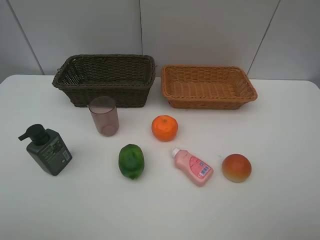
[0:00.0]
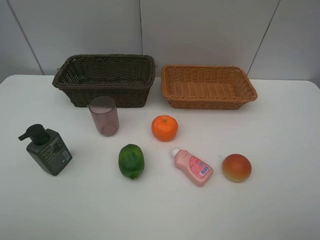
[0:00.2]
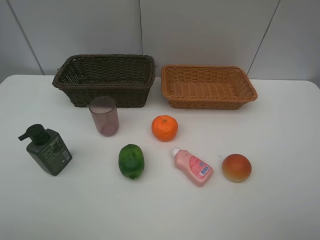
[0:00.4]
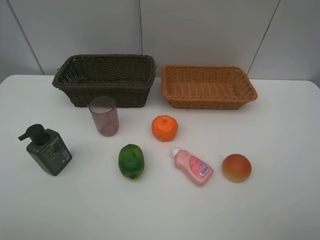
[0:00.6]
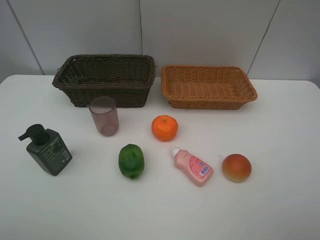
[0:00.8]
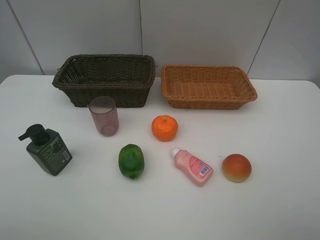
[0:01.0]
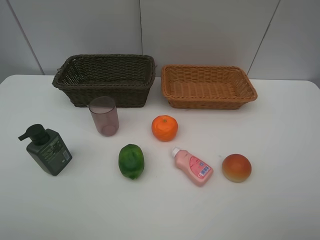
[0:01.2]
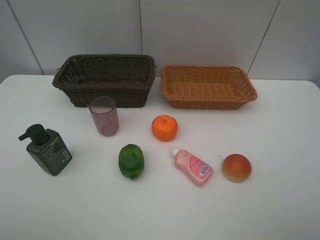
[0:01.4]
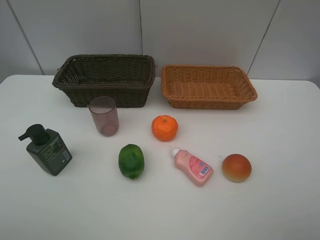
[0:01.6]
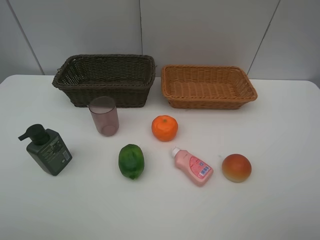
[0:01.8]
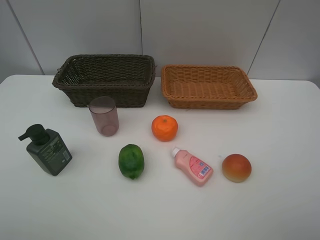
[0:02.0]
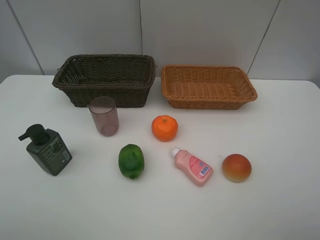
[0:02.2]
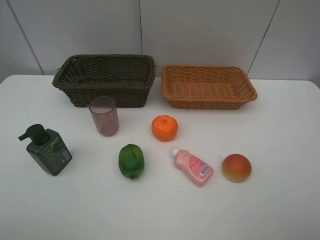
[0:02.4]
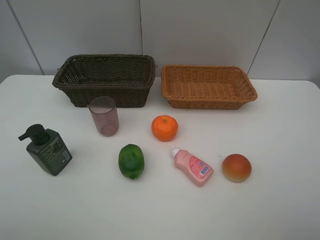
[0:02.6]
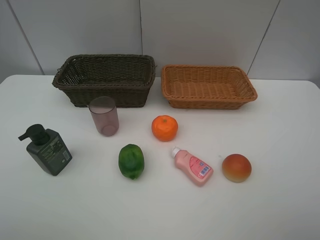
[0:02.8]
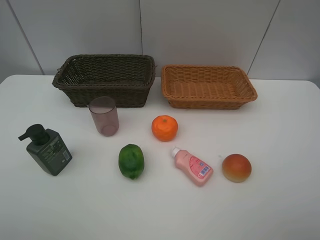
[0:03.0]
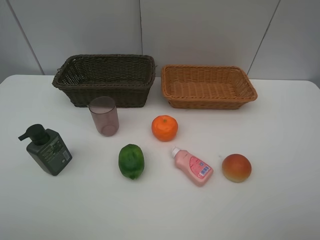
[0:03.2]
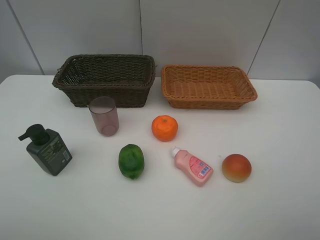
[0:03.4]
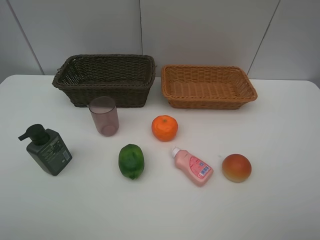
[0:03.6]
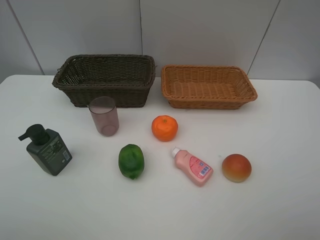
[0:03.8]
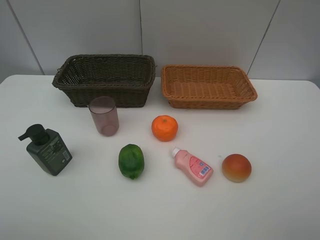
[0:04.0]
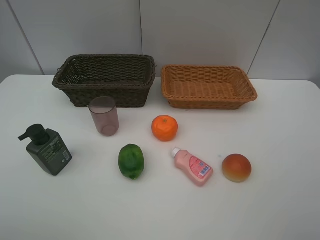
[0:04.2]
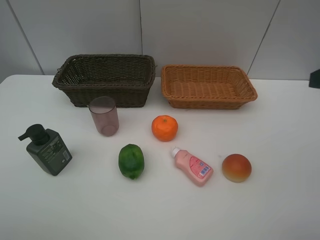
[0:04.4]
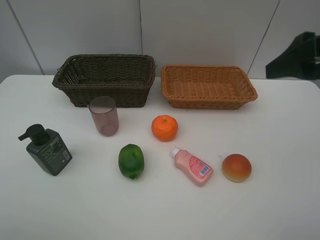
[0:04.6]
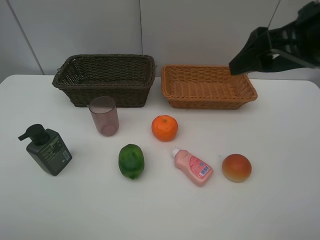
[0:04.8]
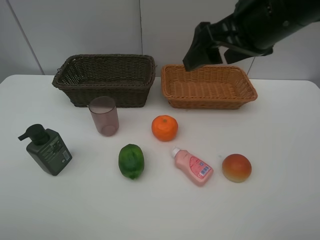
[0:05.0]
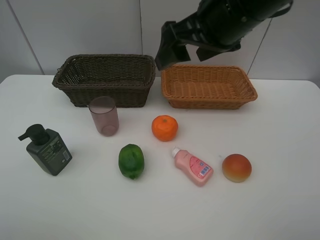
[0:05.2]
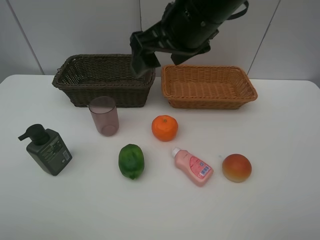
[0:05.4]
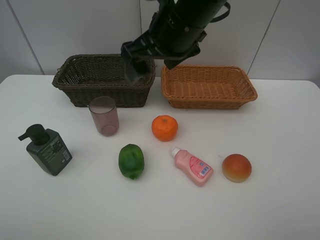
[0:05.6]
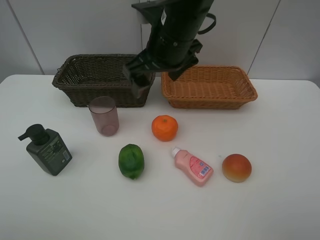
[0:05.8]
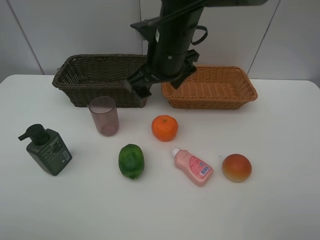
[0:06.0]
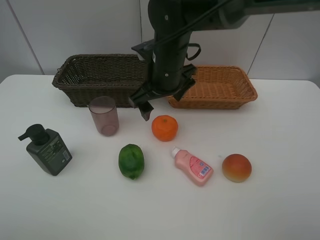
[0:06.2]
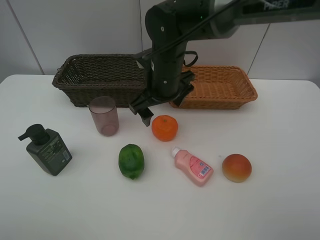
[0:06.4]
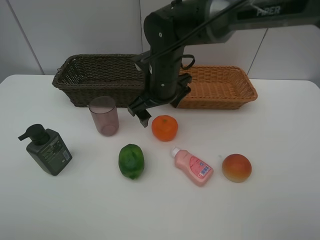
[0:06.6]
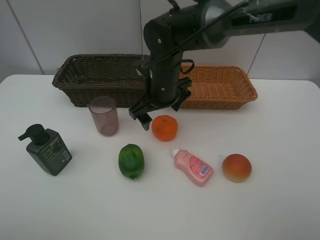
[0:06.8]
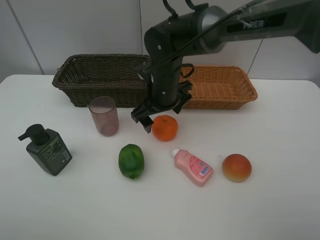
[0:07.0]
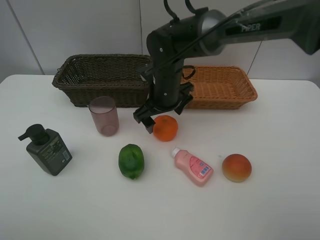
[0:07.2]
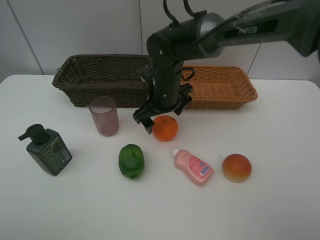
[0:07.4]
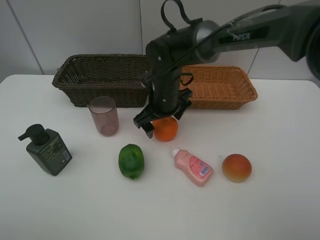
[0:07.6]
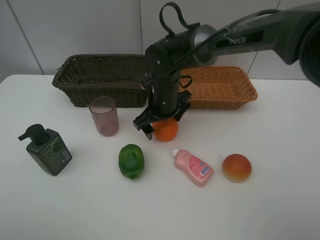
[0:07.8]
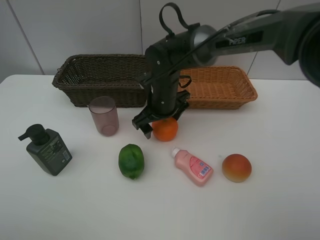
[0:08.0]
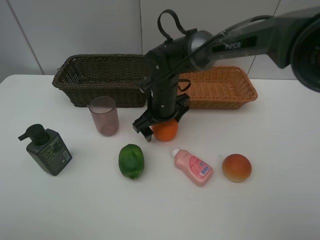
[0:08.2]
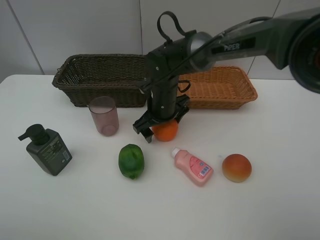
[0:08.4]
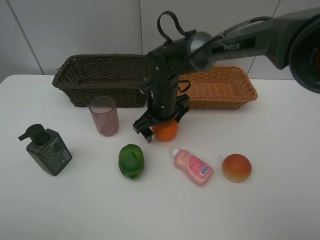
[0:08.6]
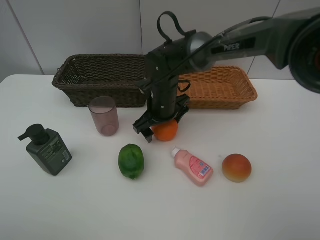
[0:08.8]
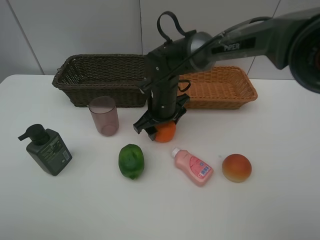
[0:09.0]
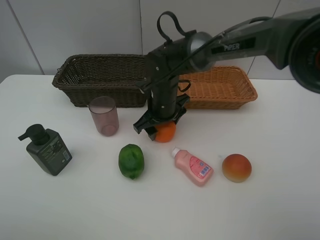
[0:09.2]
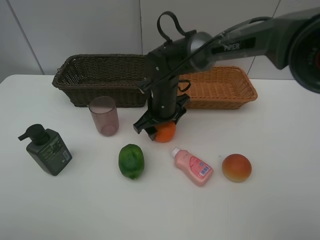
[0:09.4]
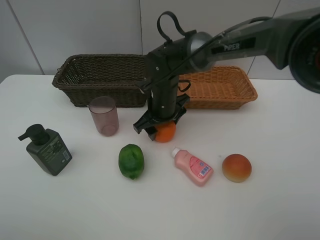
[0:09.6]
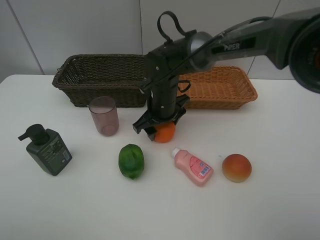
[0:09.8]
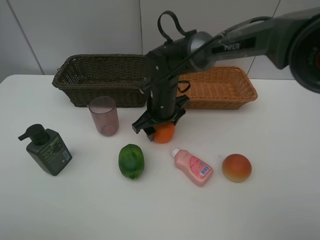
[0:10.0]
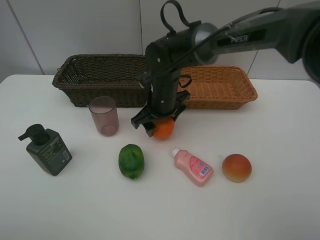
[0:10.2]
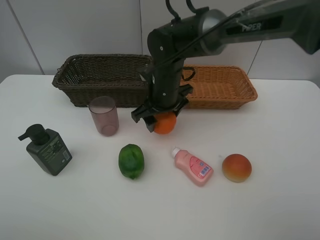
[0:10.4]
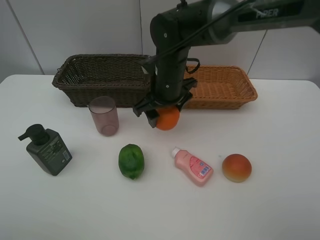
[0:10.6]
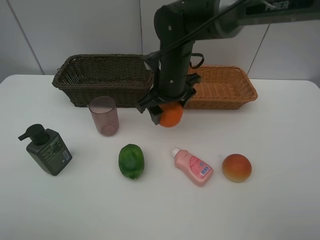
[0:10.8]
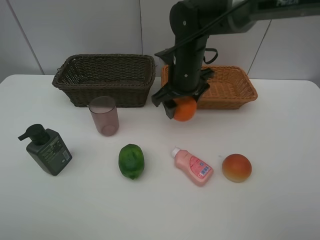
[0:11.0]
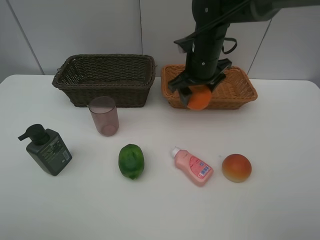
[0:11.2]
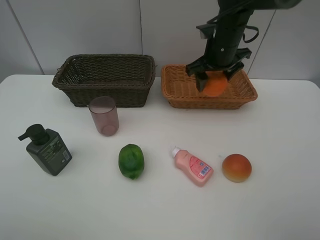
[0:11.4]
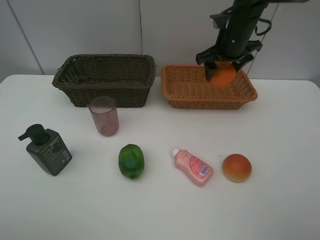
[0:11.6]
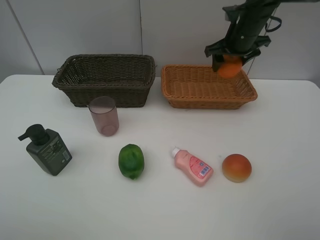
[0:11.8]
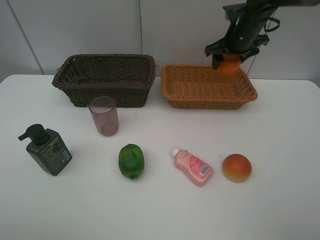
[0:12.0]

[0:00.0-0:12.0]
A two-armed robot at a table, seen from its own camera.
Task of the whole recording: place multiple objects separately in different baskets.
0:00.0 to 0:03.0: The two grippers keep their place.
0:04.4 to 0:06.0: The right gripper is displaced to the left and forward by roughly 30 cm.
0:06.0 to 0:07.6: The right gripper goes approximately 10 cm downward.
0:07.6 to 0:09.0: The right gripper closes its fingers.
0:09.0 to 0:10.4: The grippers stay close to where they were, moving slightly.
0:10.4 to 0:12.0: The right gripper travels to the right and forward by some 20 cm.

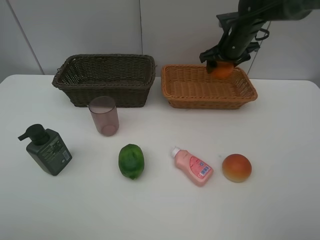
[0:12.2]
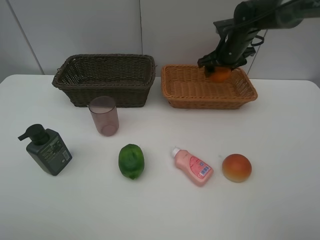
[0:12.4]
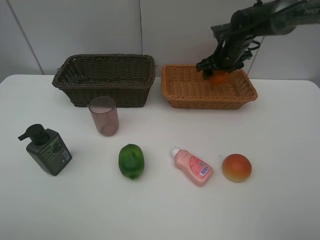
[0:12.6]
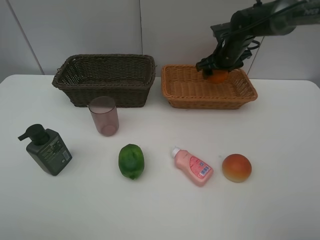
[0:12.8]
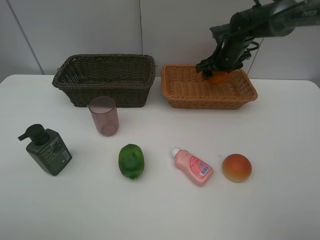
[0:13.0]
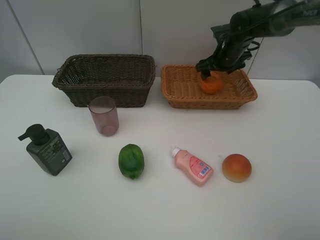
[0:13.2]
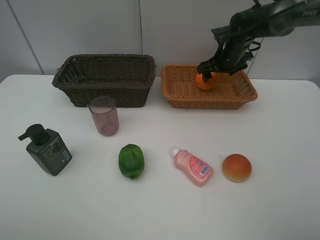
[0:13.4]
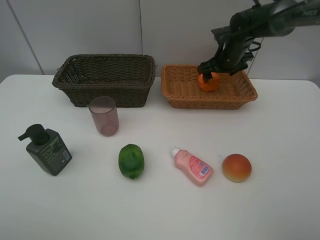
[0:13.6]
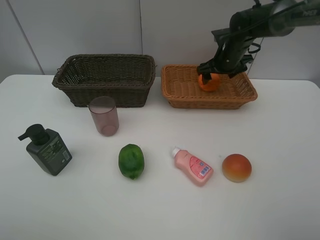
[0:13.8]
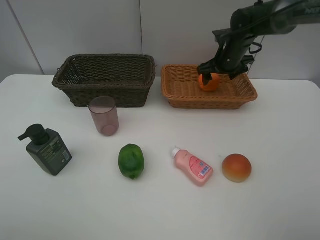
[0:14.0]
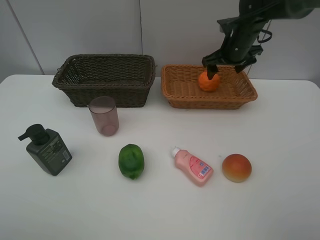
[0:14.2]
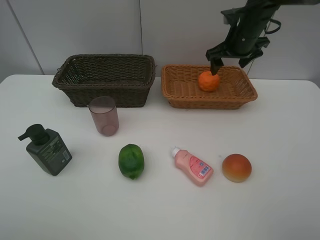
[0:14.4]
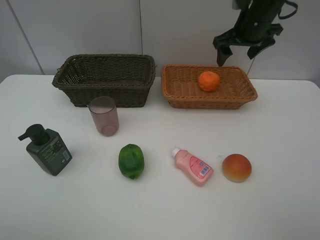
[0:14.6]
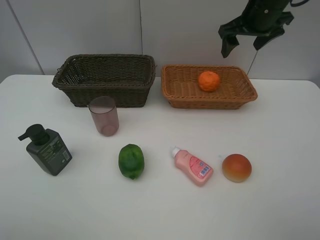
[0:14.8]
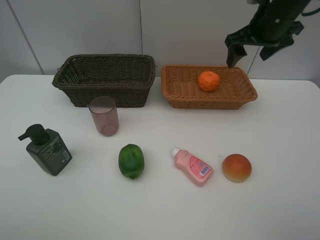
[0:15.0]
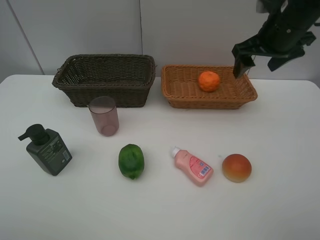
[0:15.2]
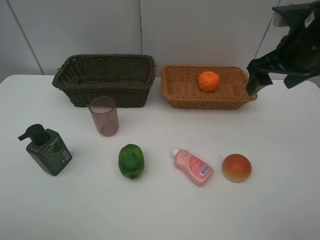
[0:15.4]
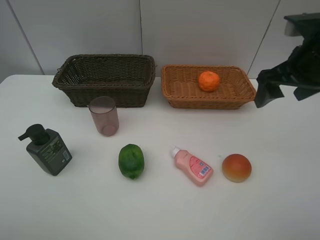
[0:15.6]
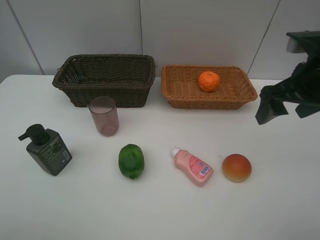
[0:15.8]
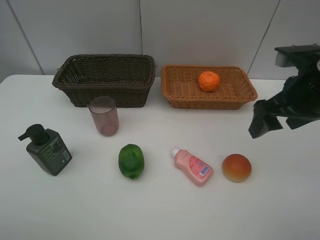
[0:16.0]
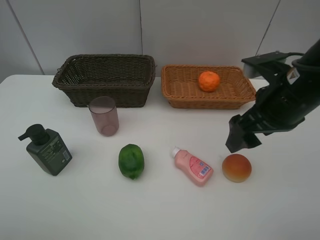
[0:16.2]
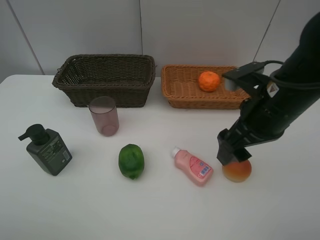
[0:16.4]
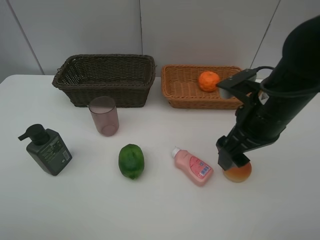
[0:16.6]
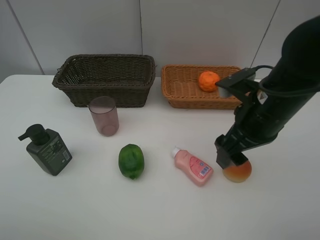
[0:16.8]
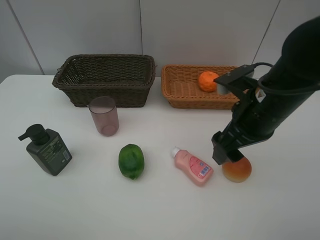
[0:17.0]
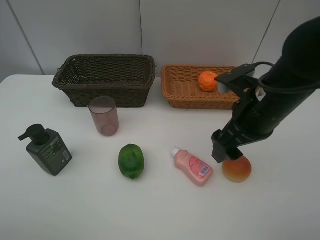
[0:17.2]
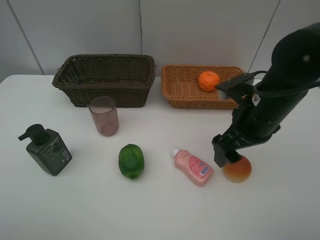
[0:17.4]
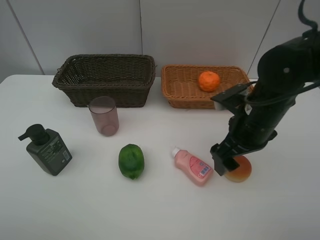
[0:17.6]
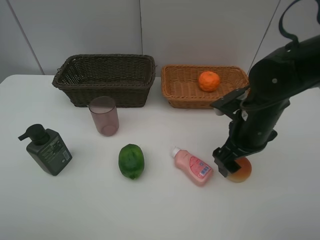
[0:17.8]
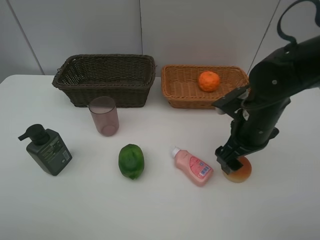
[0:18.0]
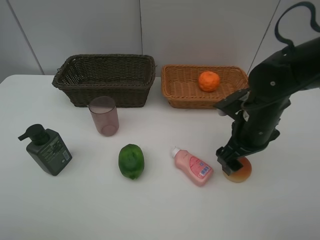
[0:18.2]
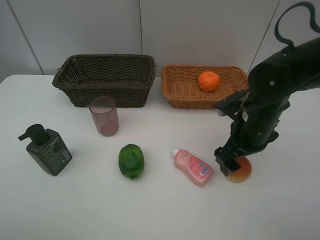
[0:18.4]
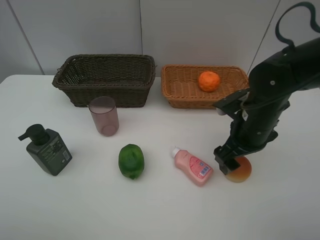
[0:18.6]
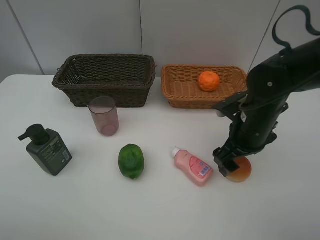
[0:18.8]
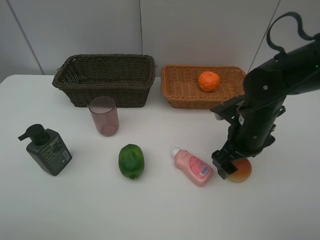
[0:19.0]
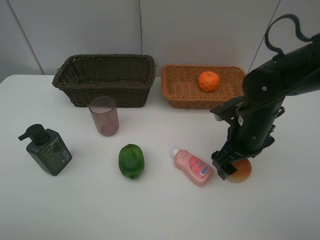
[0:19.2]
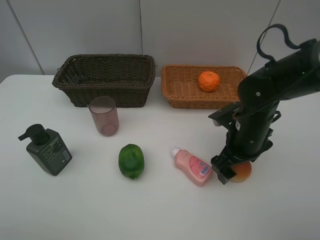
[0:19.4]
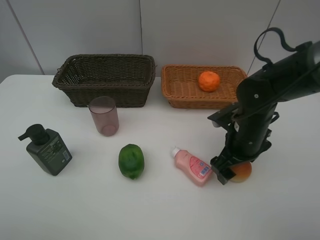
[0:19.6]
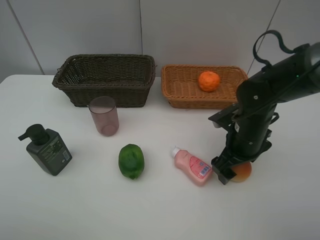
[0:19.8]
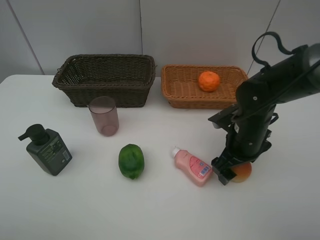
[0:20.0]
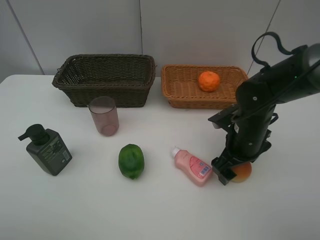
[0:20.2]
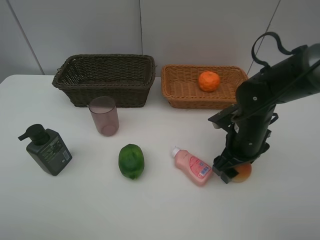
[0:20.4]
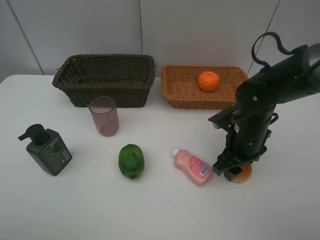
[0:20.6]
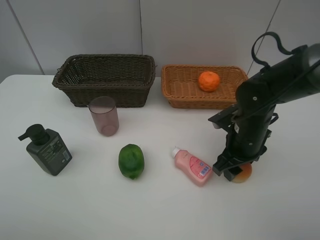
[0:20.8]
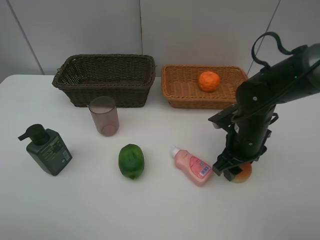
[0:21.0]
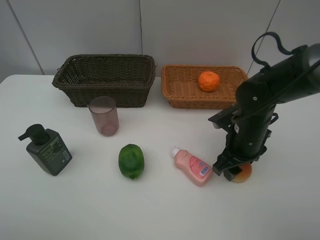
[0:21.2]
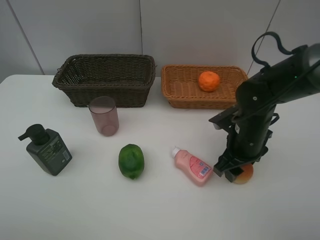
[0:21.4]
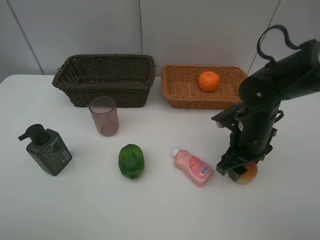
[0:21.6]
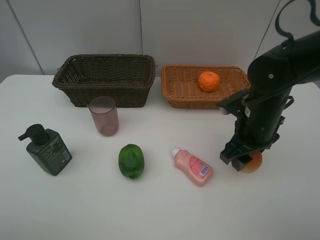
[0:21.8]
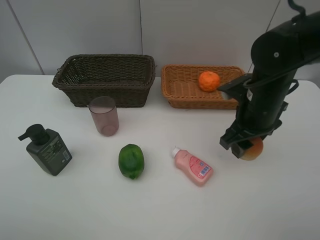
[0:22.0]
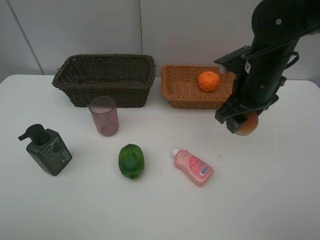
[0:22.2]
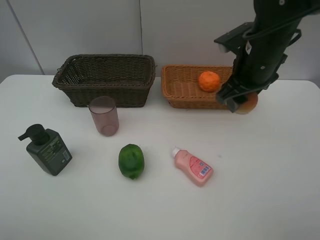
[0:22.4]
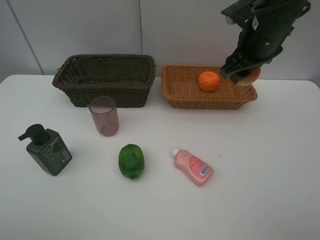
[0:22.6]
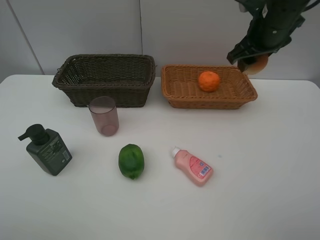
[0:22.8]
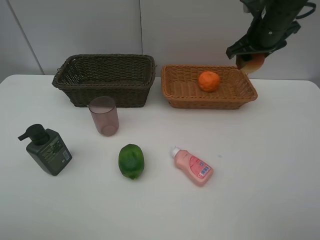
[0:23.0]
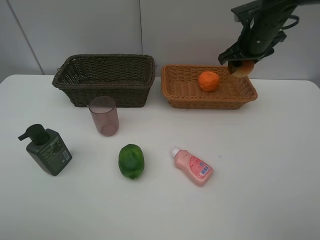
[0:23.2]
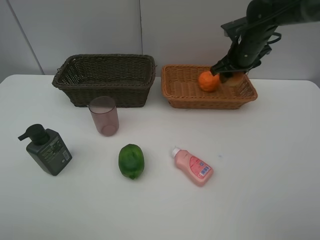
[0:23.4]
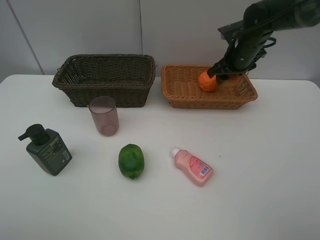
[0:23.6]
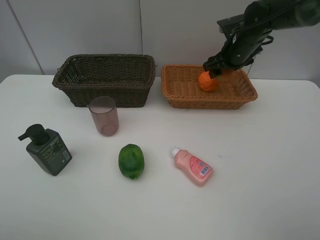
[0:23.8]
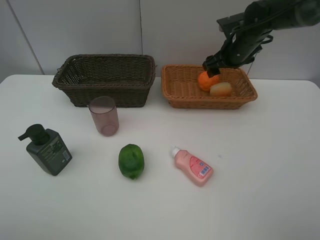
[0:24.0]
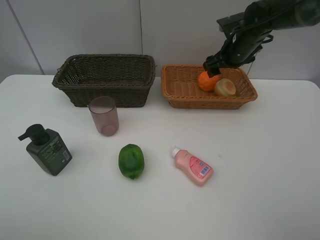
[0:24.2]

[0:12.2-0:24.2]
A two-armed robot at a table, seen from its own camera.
Task of the whole recording: place multiple objects separately in different baskets.
0:12.2 to 0:13.8: The right gripper opens its fingers.
0:13.8 to 0:15.2: The right gripper goes approximately 20 cm backward and upward.
0:15.2 to 0:16.6: The right gripper shifts about 15 cm backward, downward and to the left.
0:16.6 to 0:18.2: The right gripper moves downward, some 5 cm.
0:18.2 to 0:19.8: The grippers move only a little.
0:19.8 to 0:21.2: The right gripper closes its fingers.
0:21.2 to 0:22.6: The right gripper shifts some 20 cm upward and forward.
0:22.6 to 0:24.2: The right gripper is displaced forward and downward by roughly 15 cm, and opens up.
